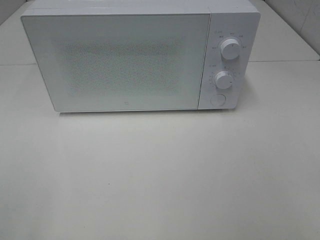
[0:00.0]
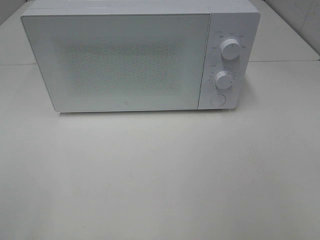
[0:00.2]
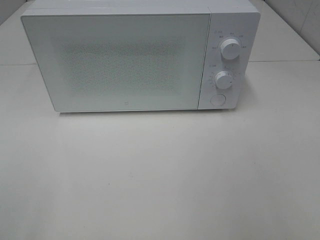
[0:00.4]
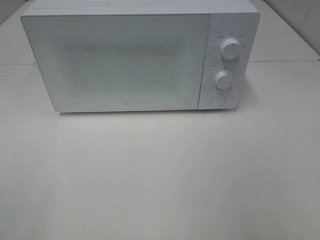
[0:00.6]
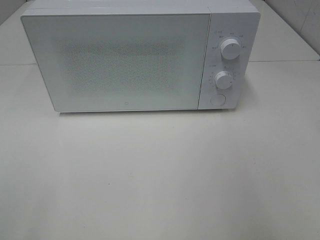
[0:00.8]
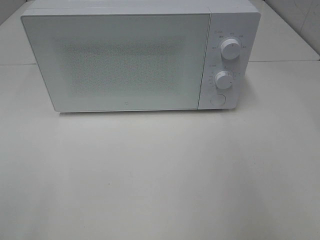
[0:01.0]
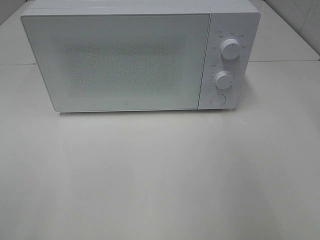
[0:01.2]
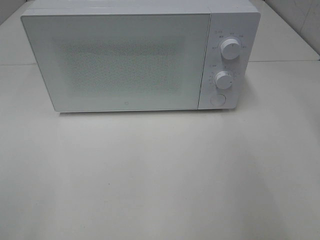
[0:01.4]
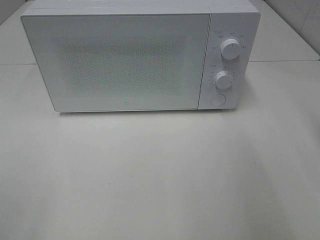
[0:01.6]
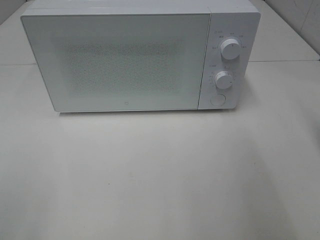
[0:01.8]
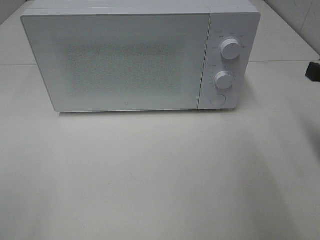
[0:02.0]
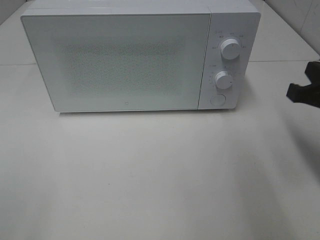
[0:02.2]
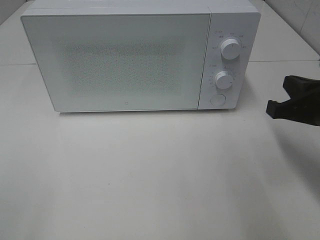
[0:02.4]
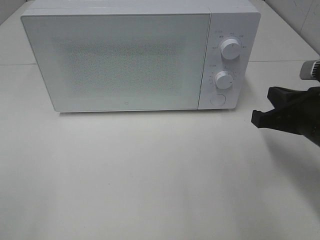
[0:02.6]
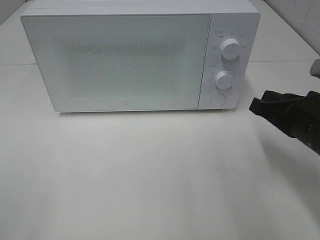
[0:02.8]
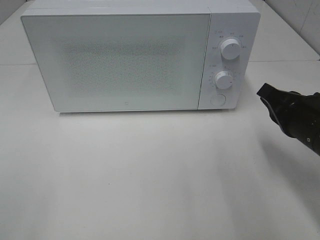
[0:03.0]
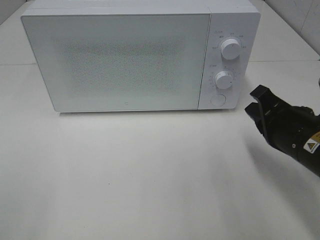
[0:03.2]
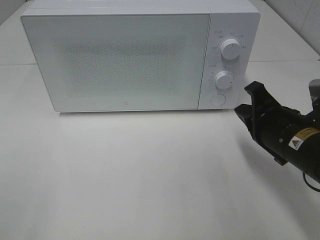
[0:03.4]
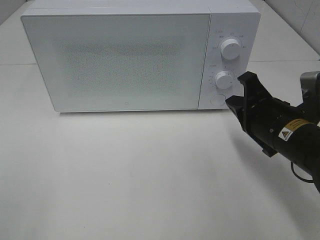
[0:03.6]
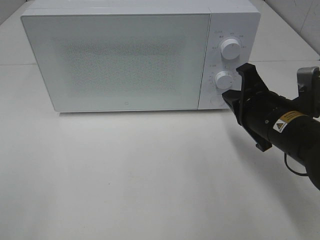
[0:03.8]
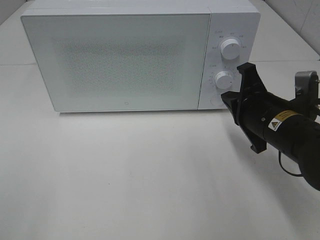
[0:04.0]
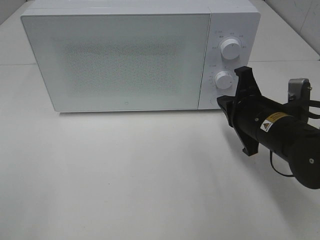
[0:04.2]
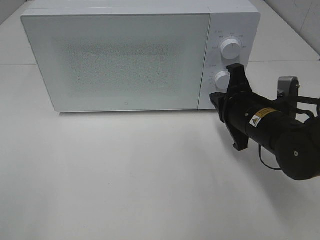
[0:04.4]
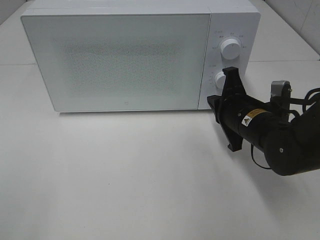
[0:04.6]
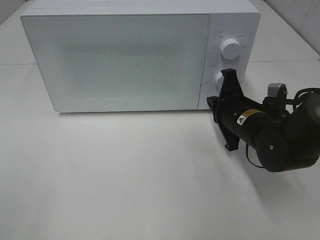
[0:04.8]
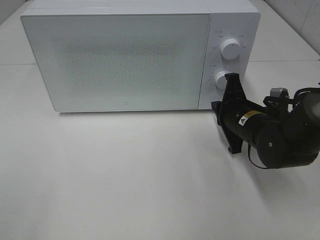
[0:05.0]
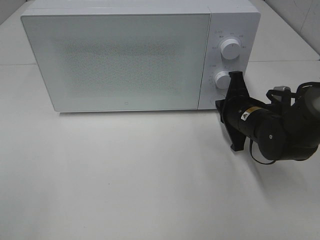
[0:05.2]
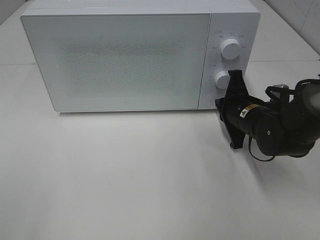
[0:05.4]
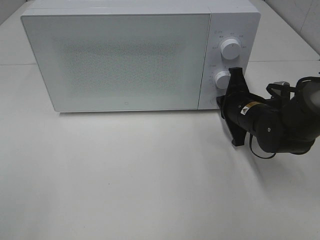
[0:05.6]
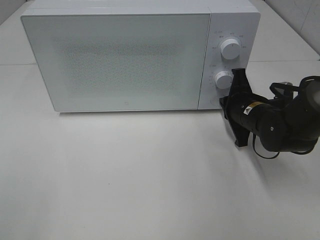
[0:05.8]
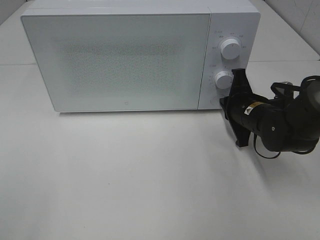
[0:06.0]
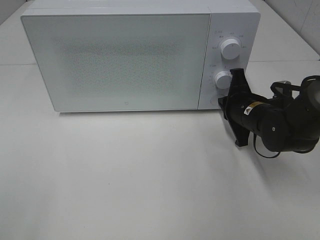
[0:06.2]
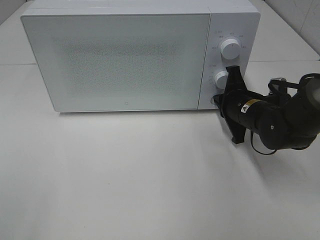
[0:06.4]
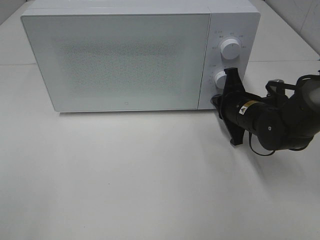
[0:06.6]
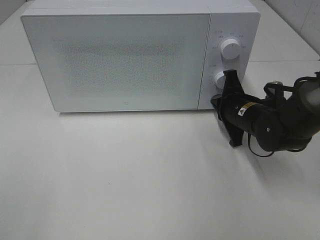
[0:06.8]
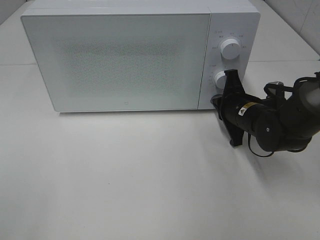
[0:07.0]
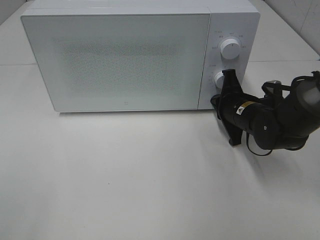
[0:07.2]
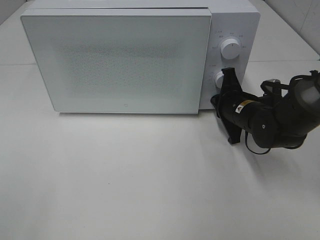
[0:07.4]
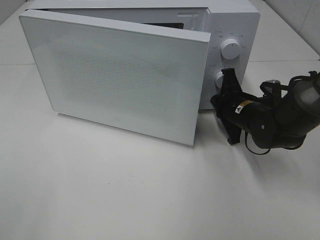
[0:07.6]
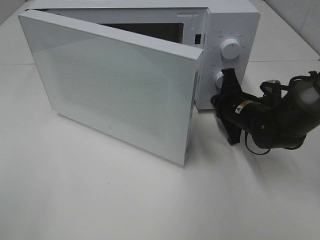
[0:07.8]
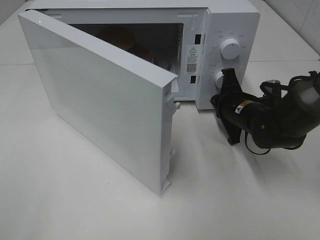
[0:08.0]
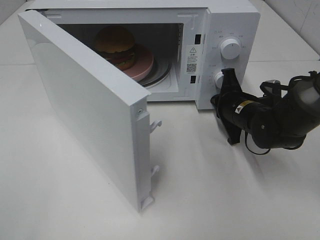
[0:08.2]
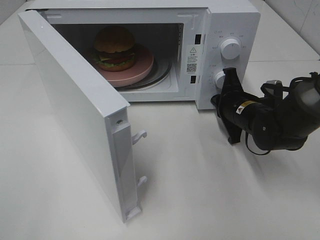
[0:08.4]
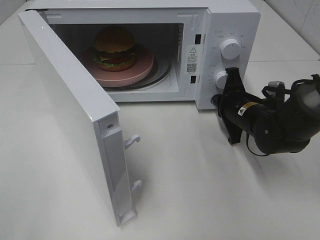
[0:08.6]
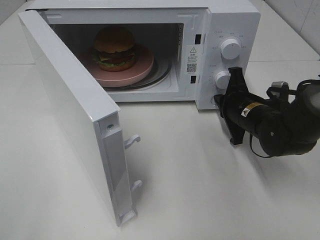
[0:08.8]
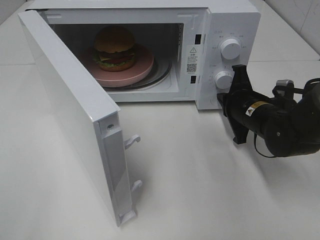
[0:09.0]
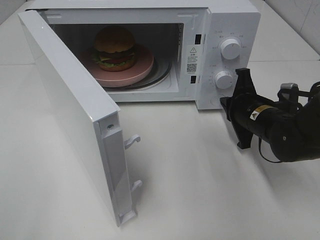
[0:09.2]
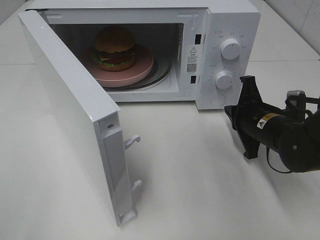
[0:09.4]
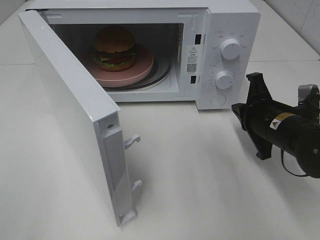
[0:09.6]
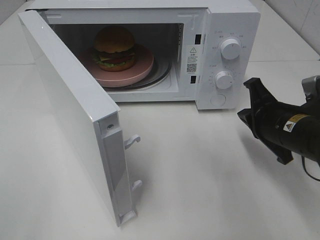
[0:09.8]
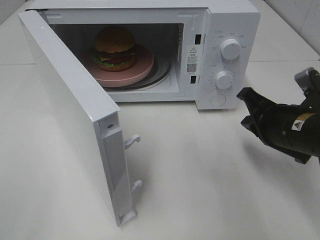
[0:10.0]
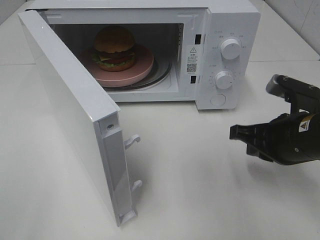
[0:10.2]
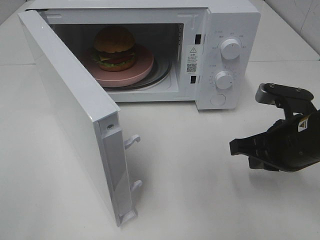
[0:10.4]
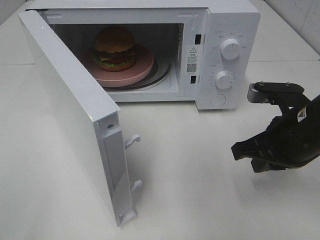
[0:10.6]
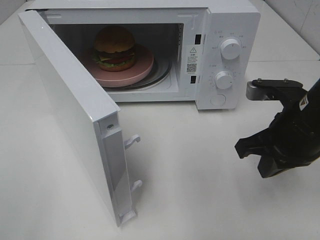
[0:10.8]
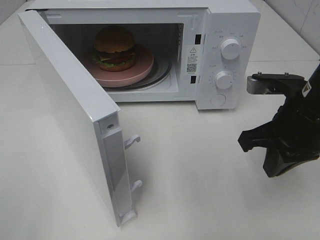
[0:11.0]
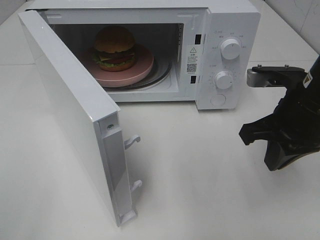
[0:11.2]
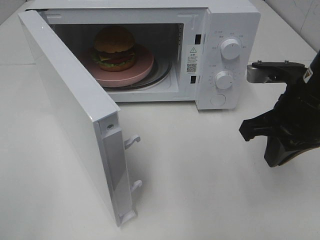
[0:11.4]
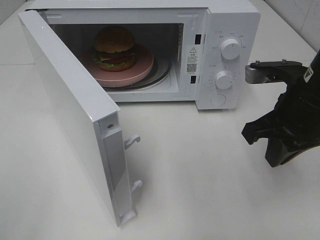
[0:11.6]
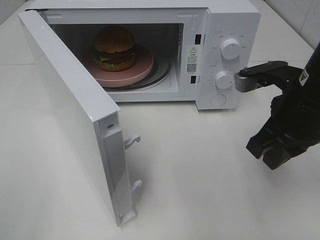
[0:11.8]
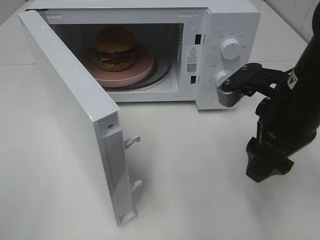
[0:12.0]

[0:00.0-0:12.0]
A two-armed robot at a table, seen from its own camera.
Task of the whole recording: Heat the burger.
Step, 0:00.0 to 0:09.0: Right hand: press the switch.
0:01.6 to 0:03.0: The right gripper heads downward and to the left, covering roughly 10 cm.
0:03.0 to 0:04.4: The right gripper is displaced to the left and forward by about 10 cm.
0:04.4 to 0:06.0: The right gripper is displaced forward by roughly 5 cm.
0:06.0 to 0:07.6: The grippers stay close to where they were, moving slightly.
0:09.0 to 0:10.4: The right gripper heads backward and upward, covering about 10 cm.
0:10.4 to 0:12.0: The right gripper heads upward, covering approximately 5 cm, and opens.

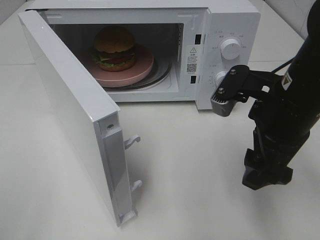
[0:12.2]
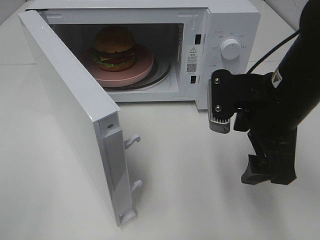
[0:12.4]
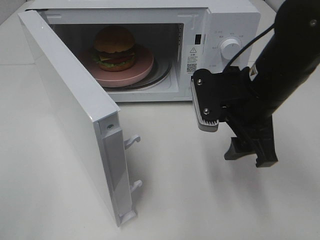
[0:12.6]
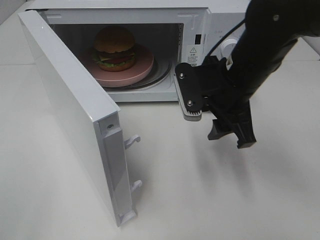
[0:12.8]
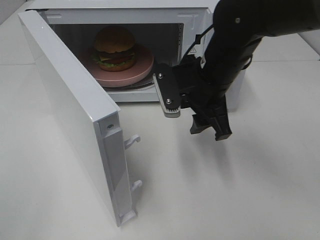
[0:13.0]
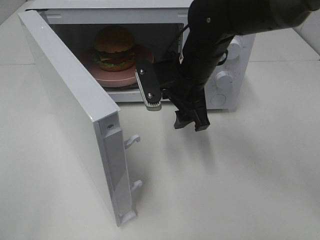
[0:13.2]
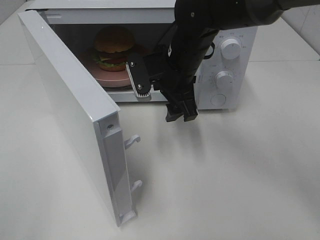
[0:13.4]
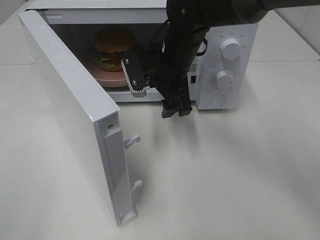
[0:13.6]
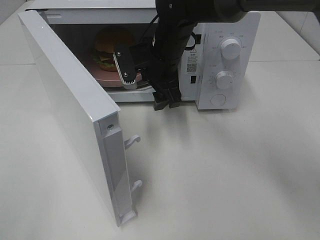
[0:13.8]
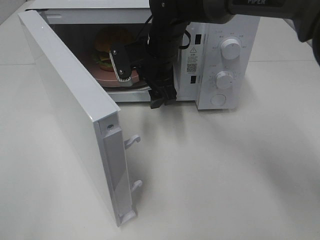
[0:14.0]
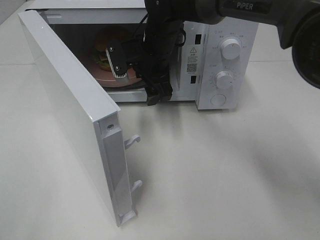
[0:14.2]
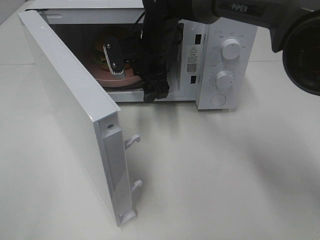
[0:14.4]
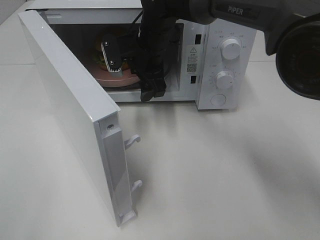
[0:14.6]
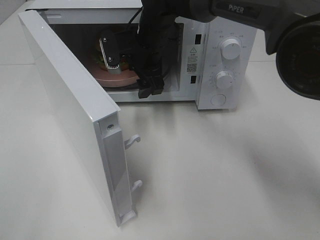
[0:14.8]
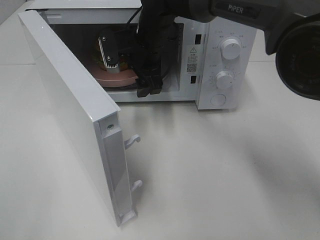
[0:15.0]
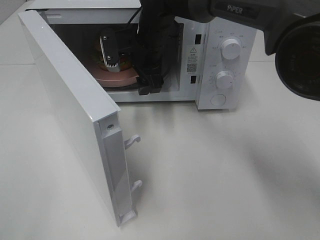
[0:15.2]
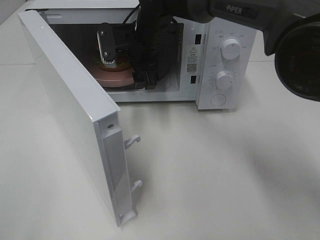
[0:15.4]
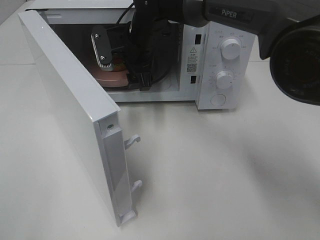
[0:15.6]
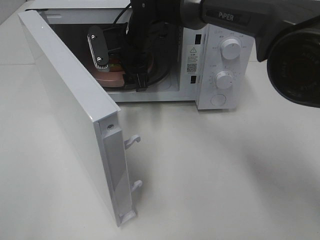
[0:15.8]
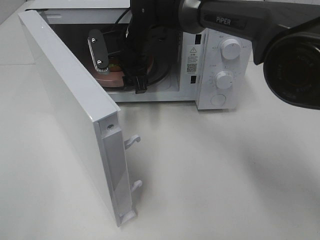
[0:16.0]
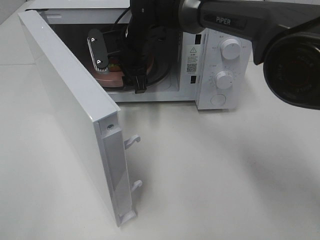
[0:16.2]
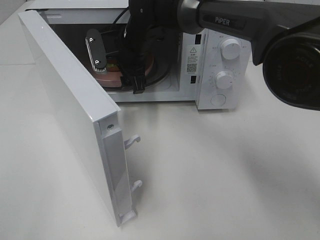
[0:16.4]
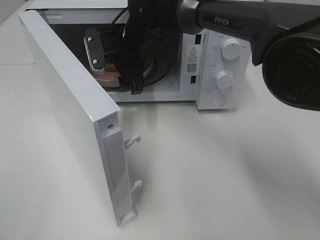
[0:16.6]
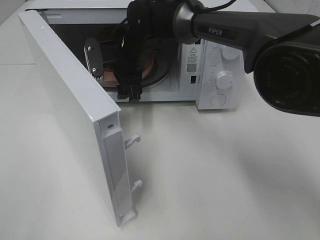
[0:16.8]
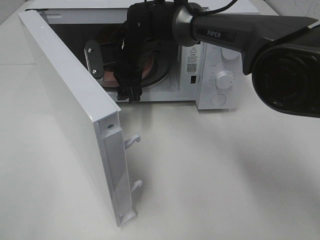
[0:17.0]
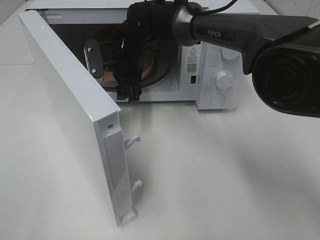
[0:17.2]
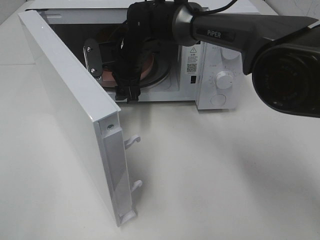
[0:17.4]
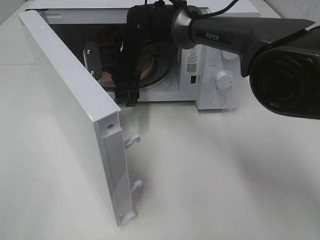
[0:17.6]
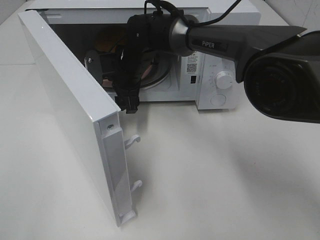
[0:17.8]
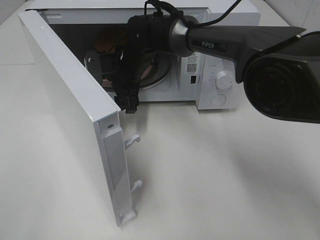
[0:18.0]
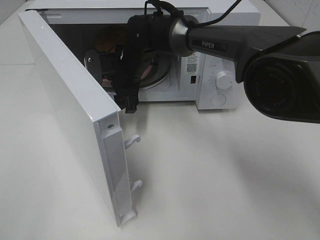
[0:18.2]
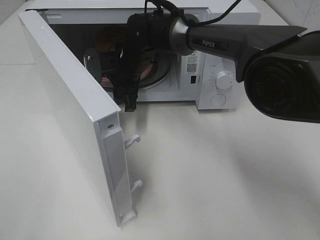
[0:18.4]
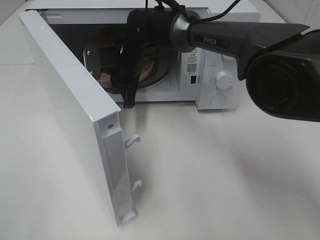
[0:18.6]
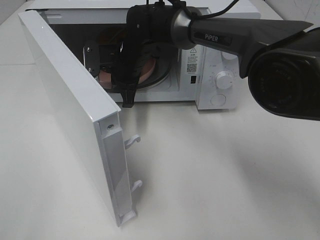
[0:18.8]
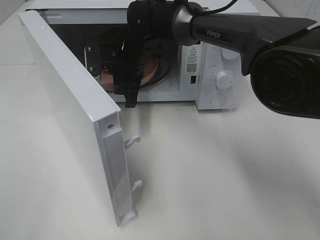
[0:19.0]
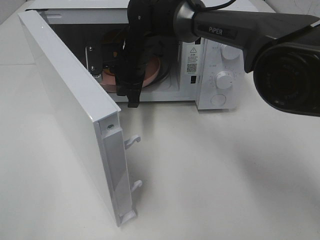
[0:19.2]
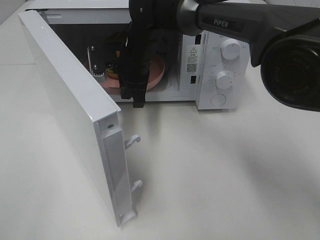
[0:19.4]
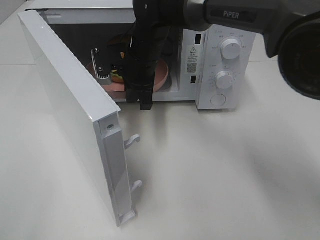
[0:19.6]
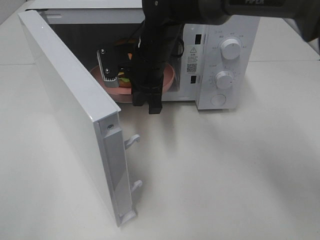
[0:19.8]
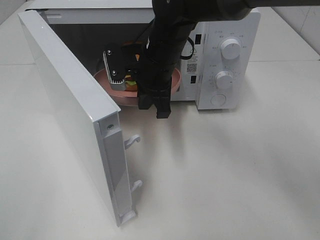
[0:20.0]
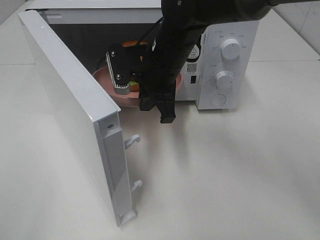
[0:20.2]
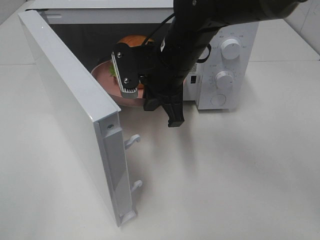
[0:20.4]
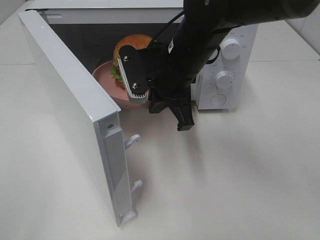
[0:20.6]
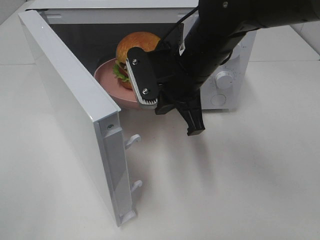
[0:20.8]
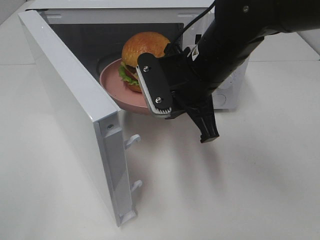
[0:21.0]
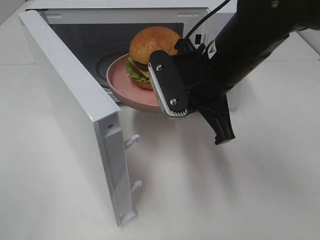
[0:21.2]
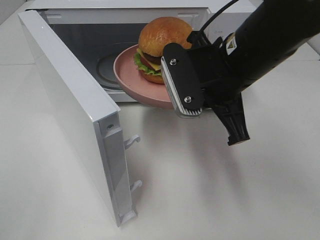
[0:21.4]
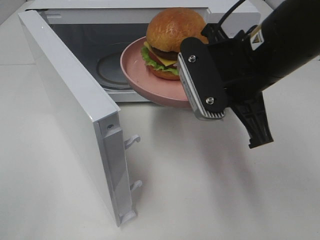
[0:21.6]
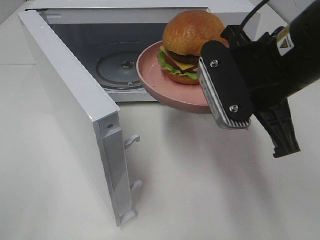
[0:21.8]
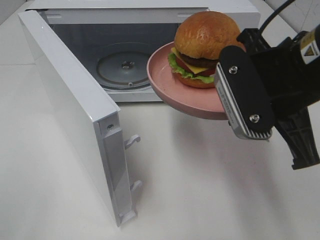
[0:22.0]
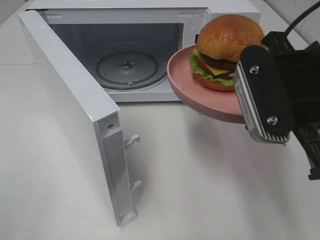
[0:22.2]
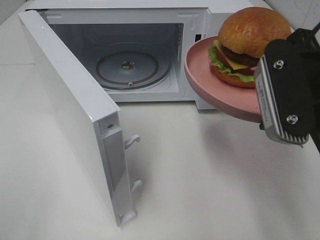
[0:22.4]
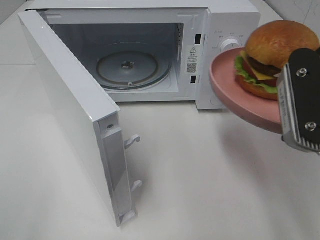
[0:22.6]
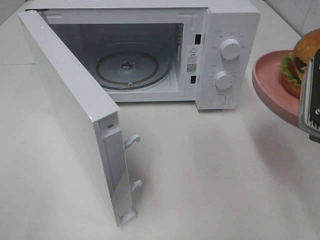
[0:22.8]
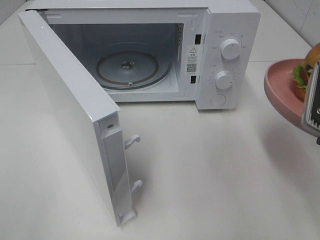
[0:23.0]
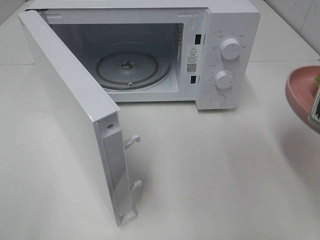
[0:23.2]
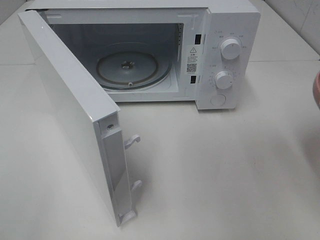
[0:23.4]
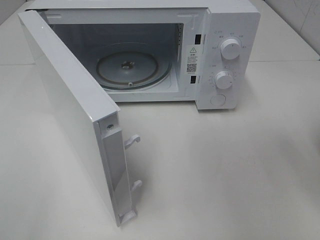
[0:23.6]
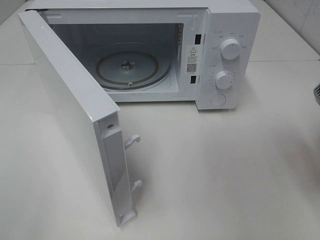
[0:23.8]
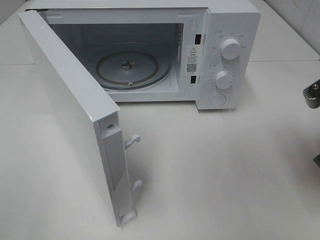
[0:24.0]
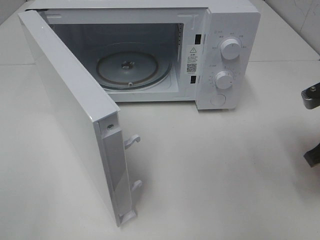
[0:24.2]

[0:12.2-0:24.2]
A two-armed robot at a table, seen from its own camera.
Task of the whole recording: Heat the burger.
Step, 0:12.2 to 0:18.6: Right hand: grab the plate with the hamburger.
0:12.2 to 0:13.8: The right gripper shifts about 25 cm forward and to the left.
0:13.8 to 0:15.2: The grippers stay close to where they were, moving slightly.
0:15.2 to 0:16.6: There are only small adjustments of the grippers.
0:16.6 to 0:18.2: The grippers move only a little.
0:18.2 to 0:19.8: The right gripper goes roughly 5 cm upward and backward, and closes its fingers.
0:19.8 to 0:21.2: The right gripper shifts roughly 15 cm backward, to the right and upward.
0:21.2 to 0:22.6: The right gripper is displaced to the right and backward by some 15 cm.
0:22.6 to 0:24.2: The right gripper shifts roughly 15 cm downward, to the right and forward.
